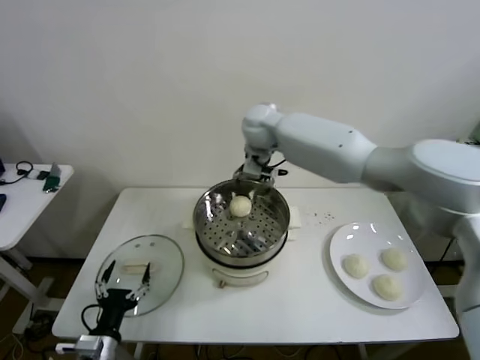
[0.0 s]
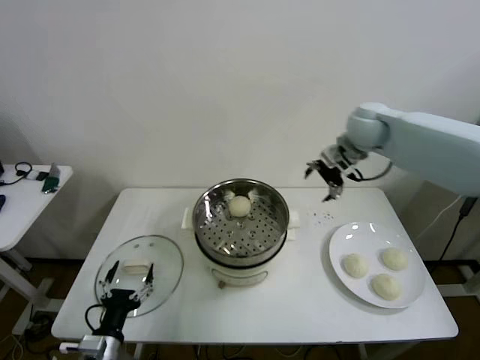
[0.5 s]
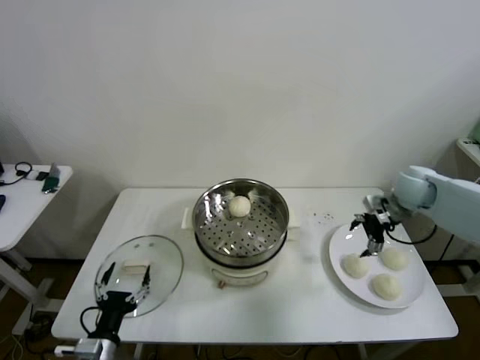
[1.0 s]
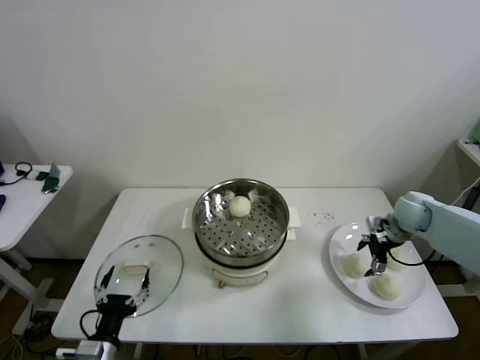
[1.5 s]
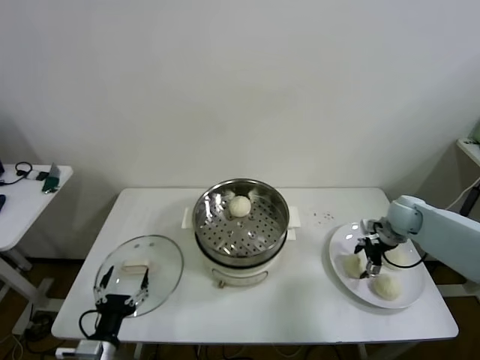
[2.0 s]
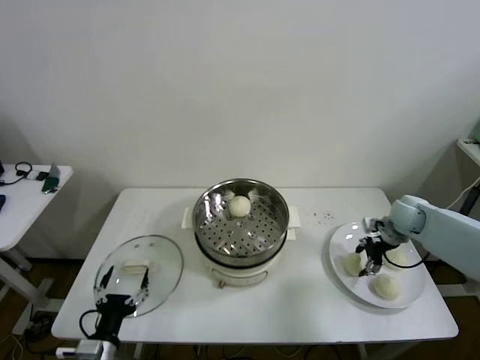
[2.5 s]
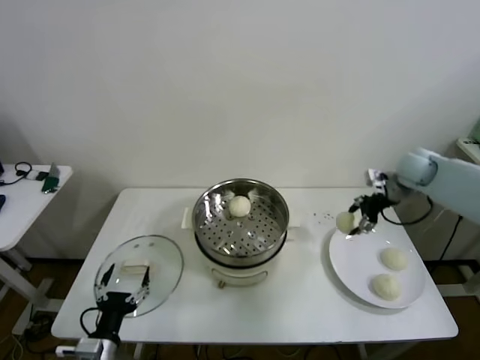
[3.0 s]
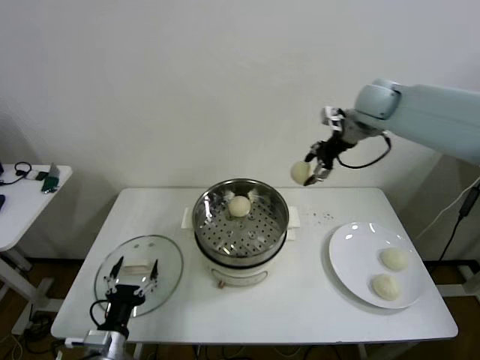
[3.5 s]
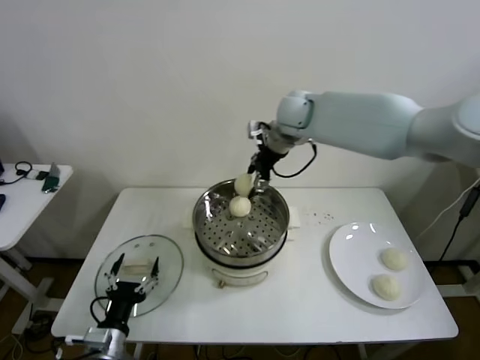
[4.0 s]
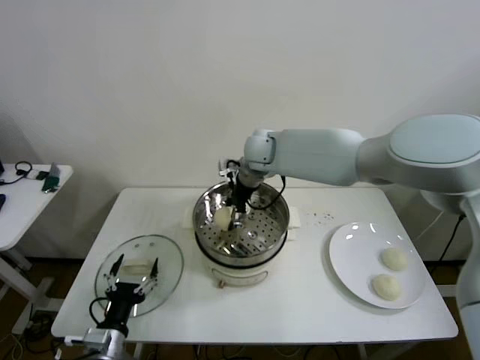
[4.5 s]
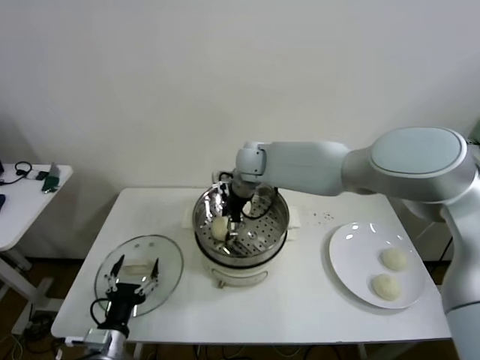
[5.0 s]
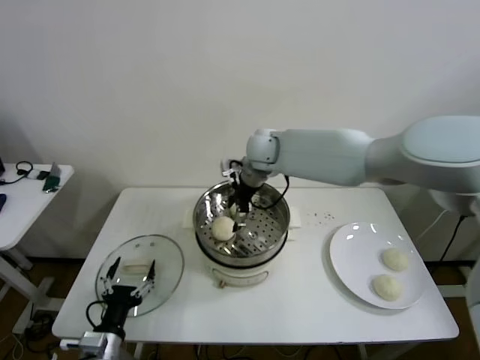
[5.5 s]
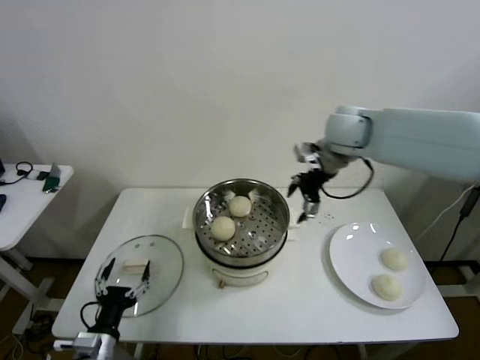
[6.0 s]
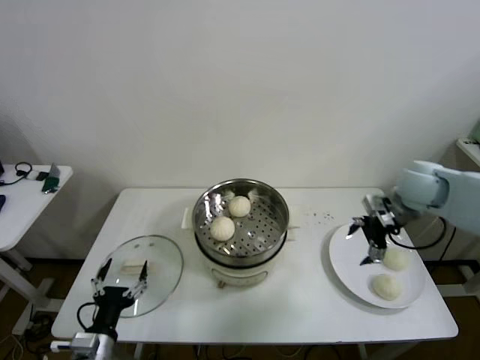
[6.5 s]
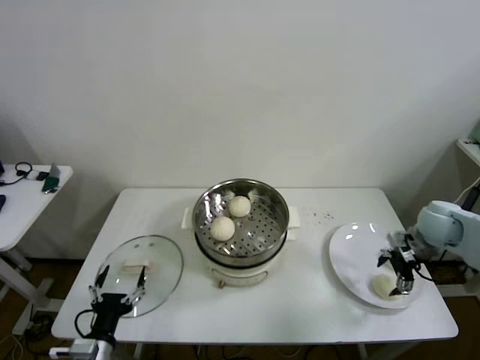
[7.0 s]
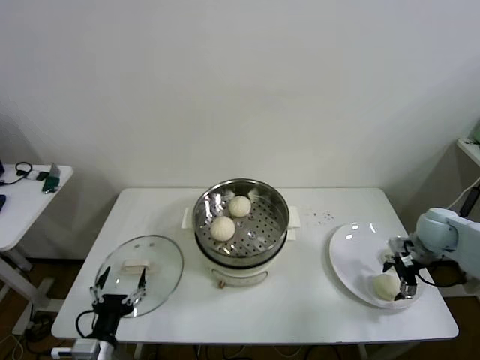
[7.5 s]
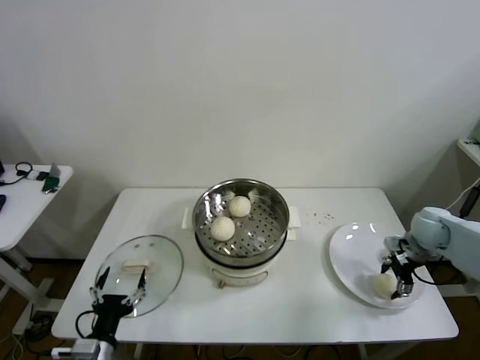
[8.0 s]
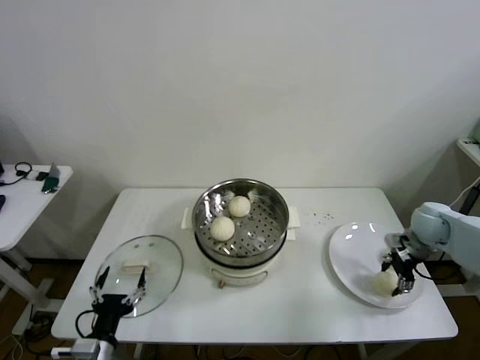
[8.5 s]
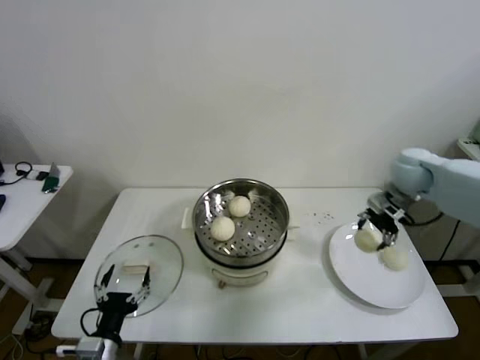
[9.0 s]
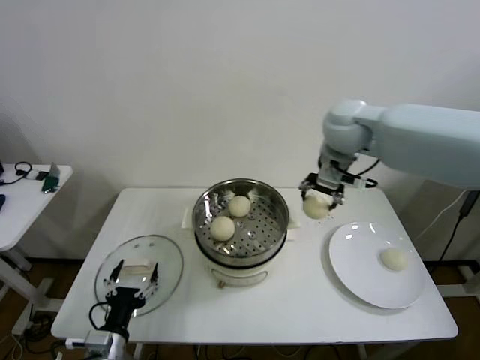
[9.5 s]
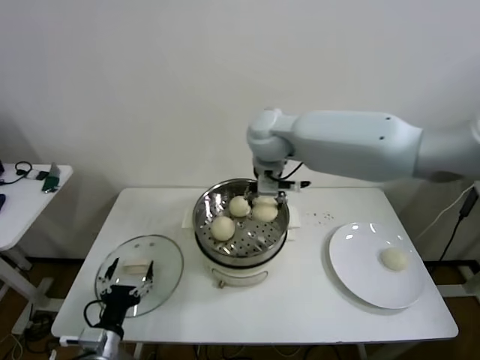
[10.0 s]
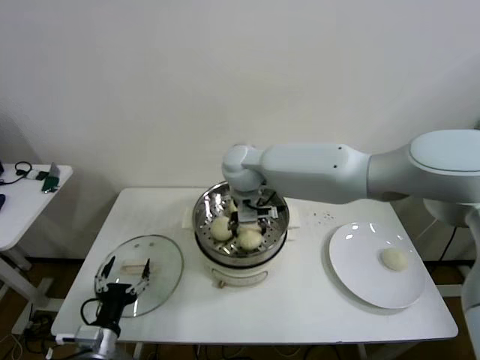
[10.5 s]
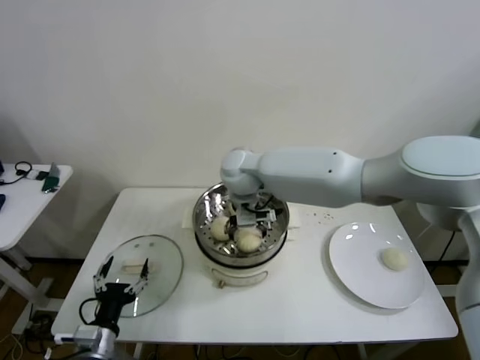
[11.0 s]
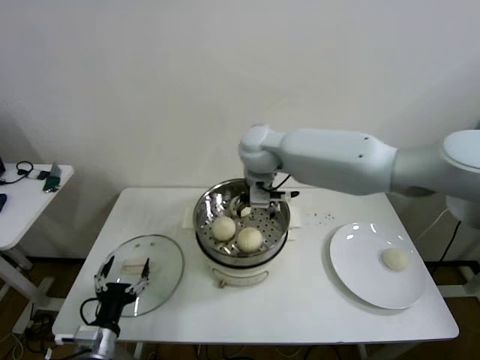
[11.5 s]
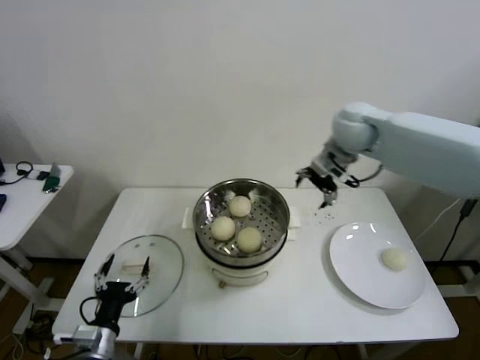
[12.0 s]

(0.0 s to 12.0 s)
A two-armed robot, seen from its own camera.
Step, 0.0 s - 2.0 s: Grasp the baozi in the plate with right gripper.
Step, 2.5 s - 5.0 s: Place the baozi on the steamer with right gripper.
Step, 5.5 s - 8.0 s: Grasp the baozi in the plate with right gripper.
Step, 8.5 s - 10.5 s: Place the baozi on the steamer with right gripper.
0.0 s - 2.0 s: The right gripper shifts roughly 40 cm to the right and downward.
2.0 s - 4.0 s: The right gripper goes about 40 cm to the left and upward.
4.0 s - 6.0 s: The right gripper moves to the right and backward, approximately 15 cm.
6.0 s - 8.0 s: The right gripper heads downward and to the right, covering roughly 30 cm.
8.0 s - 10.0 s: The right gripper shifts roughly 50 cm to the left and upward.
10.0 s - 12.0 s: The right gripper heads to the right, covering roughly 20 cm.

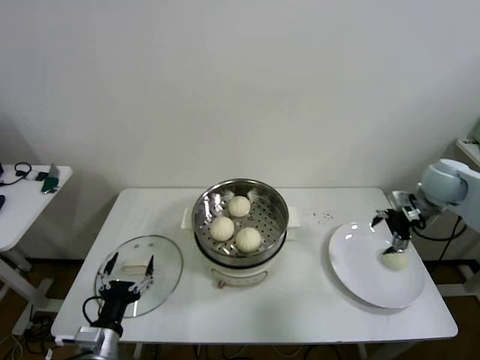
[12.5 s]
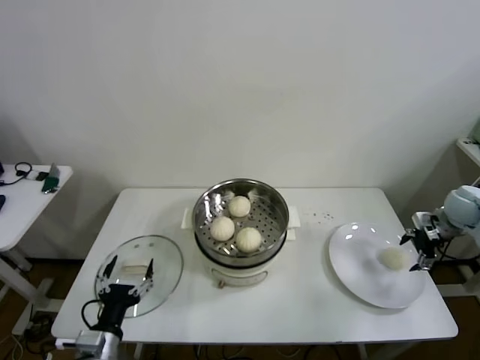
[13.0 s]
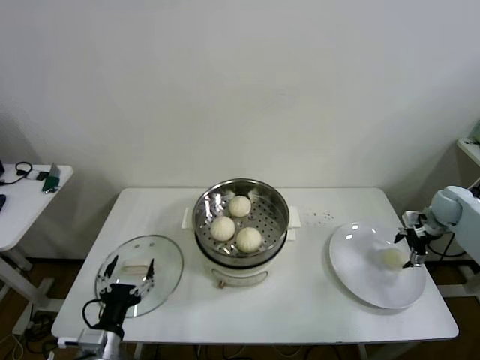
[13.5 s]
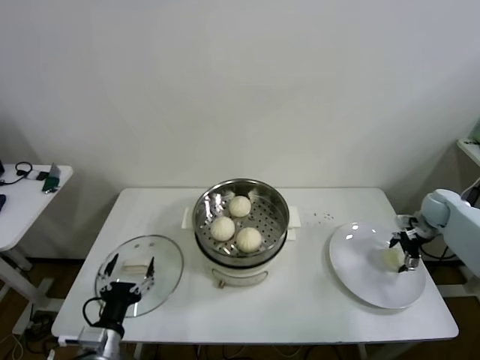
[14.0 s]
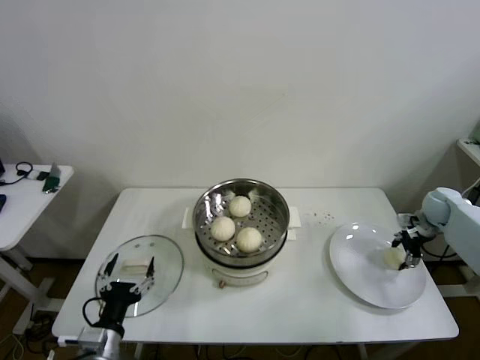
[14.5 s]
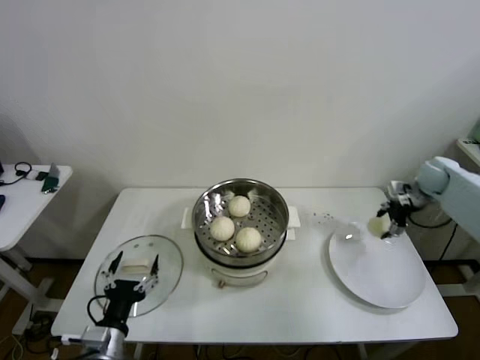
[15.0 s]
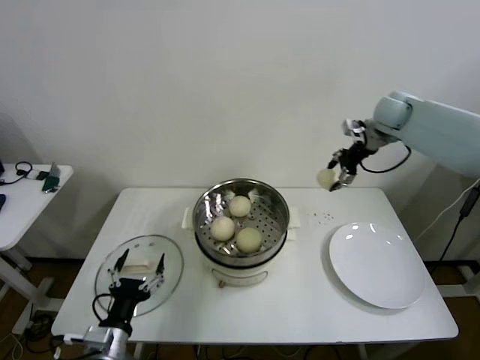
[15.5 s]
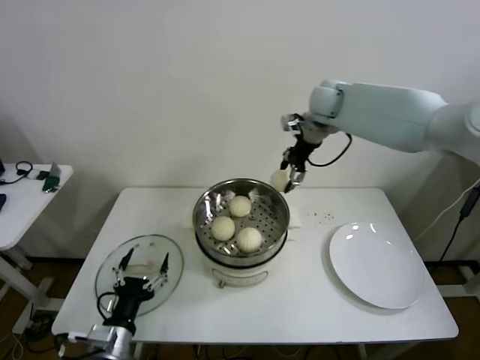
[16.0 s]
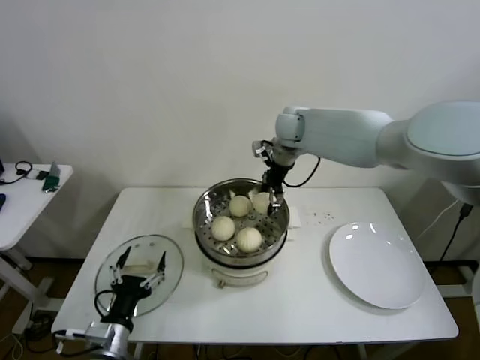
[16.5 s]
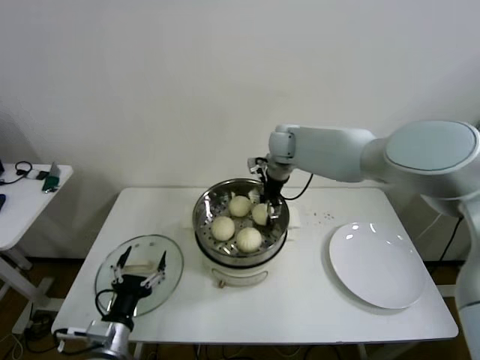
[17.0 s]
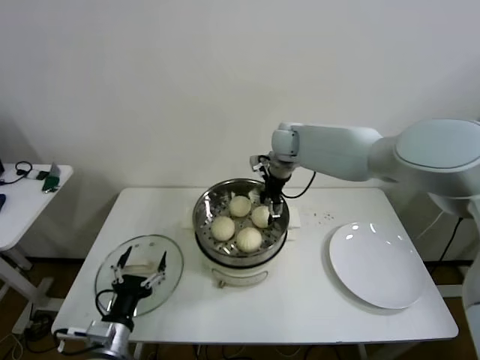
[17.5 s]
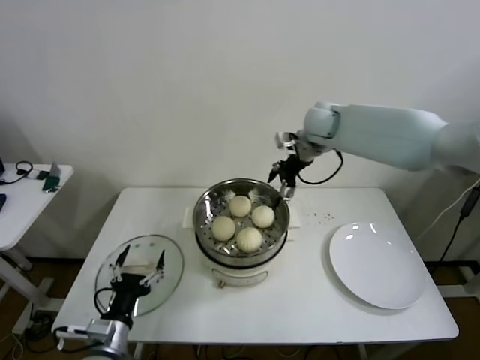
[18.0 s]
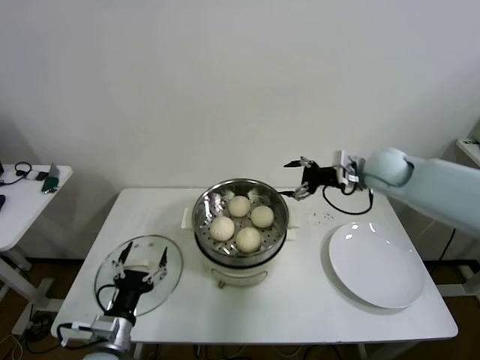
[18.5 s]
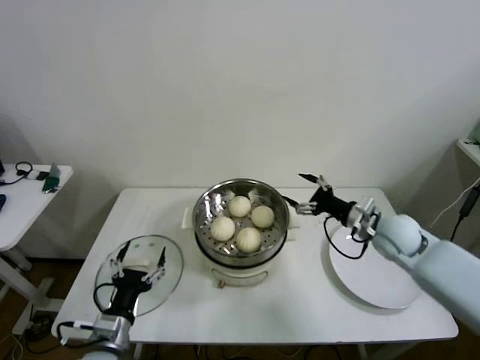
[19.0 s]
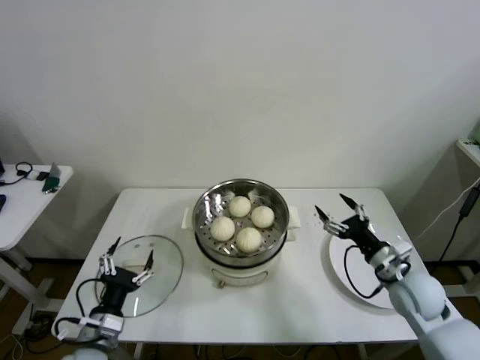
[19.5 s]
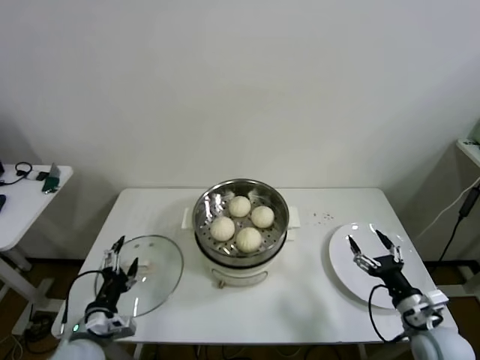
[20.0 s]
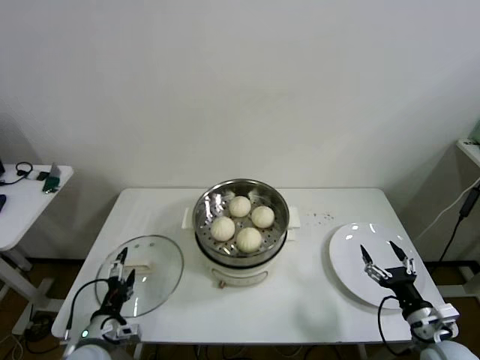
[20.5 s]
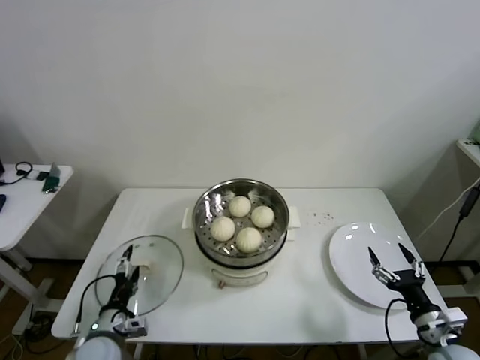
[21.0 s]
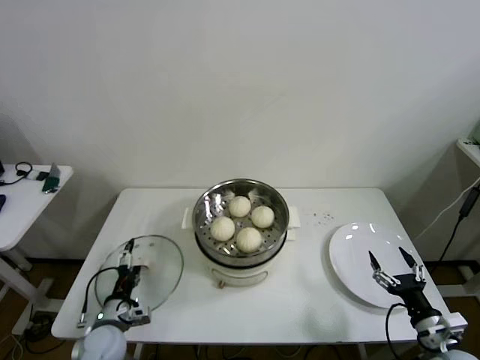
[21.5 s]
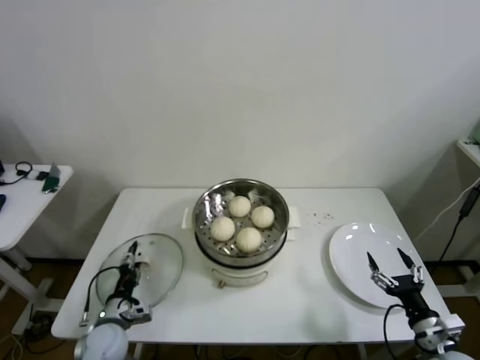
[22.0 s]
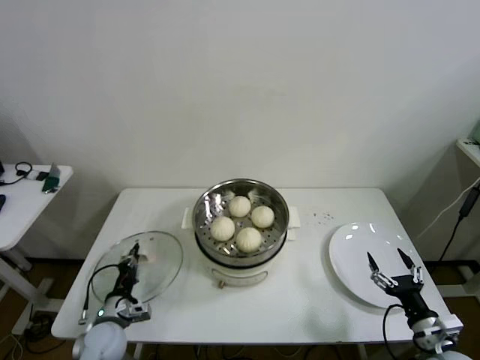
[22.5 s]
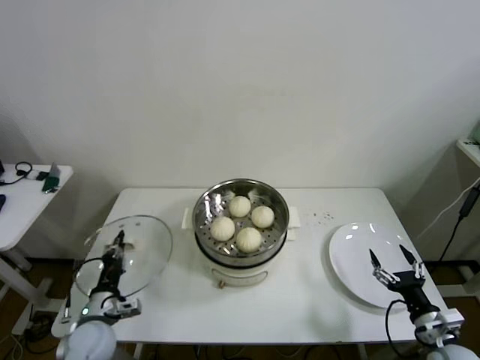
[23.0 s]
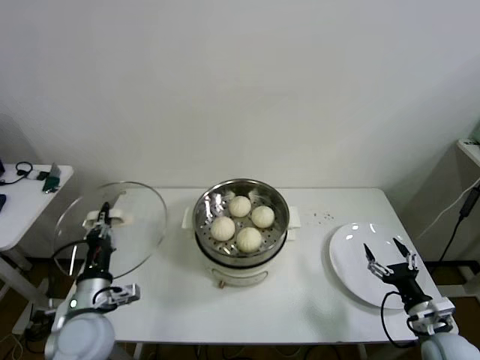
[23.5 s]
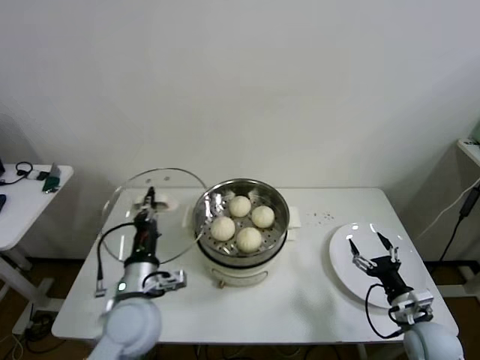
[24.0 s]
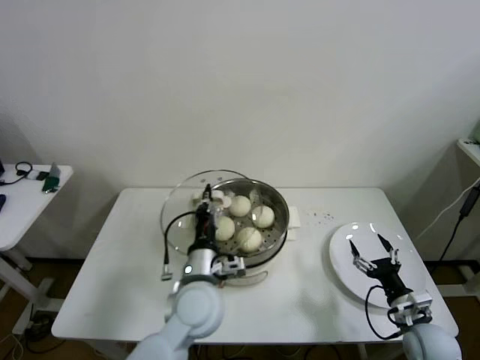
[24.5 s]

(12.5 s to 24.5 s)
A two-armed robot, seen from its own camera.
Step, 14.5 s - 17.0 s: Place the baozi on the steamer with right gripper.
Step, 17.5 s - 22.0 s: Grasp the pot lid with left gripper.
12.5 s - 14.5 s: The right gripper travels downward and to the right by about 15 cm.
14.5 s - 16.5 s: The right gripper is displaced to the left and upward by approximately 40 cm.
16.5 s - 18.5 s: The right gripper is displaced to the right and backward by about 20 cm.
18.5 s - 20.5 s: The left gripper moves roughly 5 cm; the right gripper shifts some 40 cm backward and downward.
20.5 s - 22.5 s: The left gripper travels forward by about 5 cm, and closes its fingers.
22.5 s - 24.5 s: The left gripper goes roughly 30 cm to the right and upward. The right gripper travels forward by approximately 5 cm.

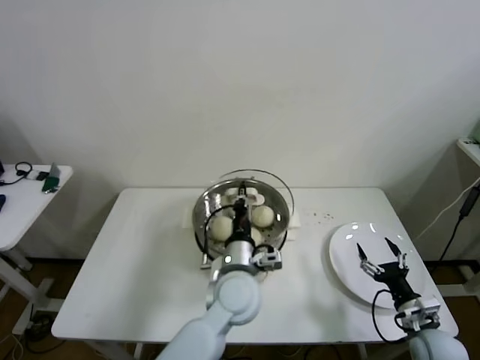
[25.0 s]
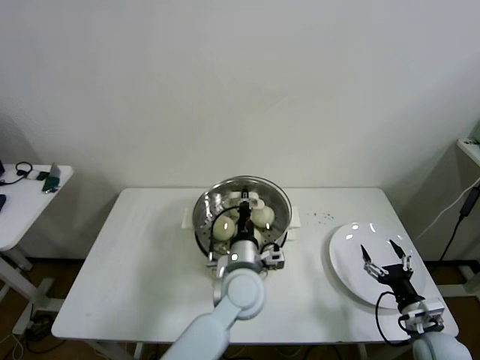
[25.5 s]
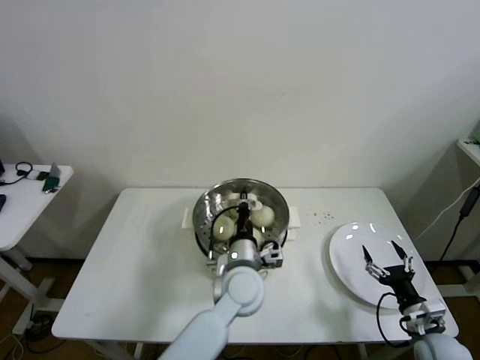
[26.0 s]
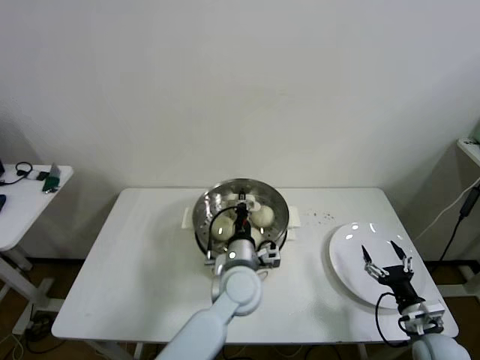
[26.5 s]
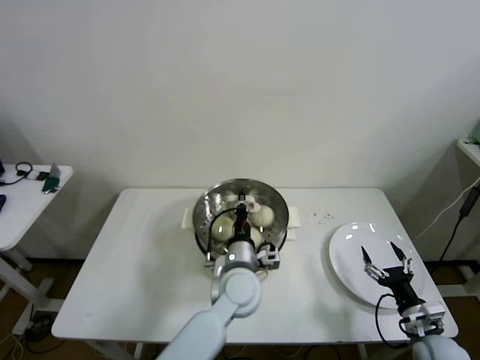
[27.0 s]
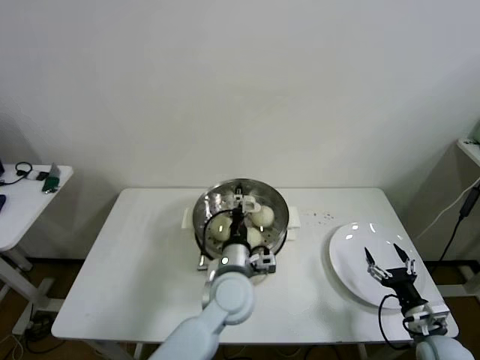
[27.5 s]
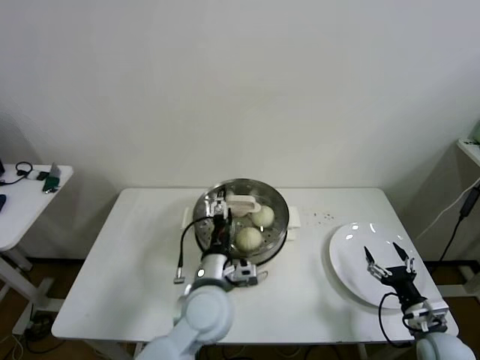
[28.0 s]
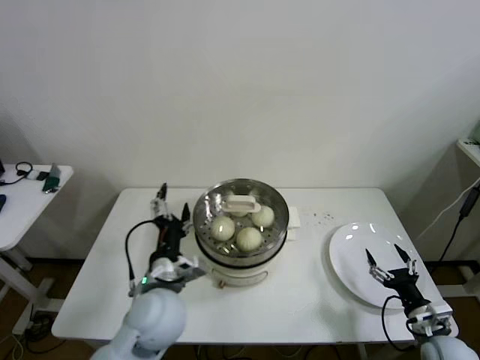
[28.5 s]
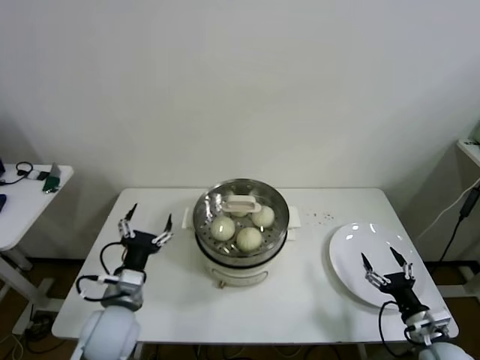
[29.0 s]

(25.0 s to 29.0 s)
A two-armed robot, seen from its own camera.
Step, 25.0 s - 27.0 s: Place the pot lid on the steamer with left gripper.
25.0 s - 27.0 s: The grippers move only a little.
27.0 s - 29.0 s: The left gripper is displaced to the left by approximately 25 cm, and opens up.
